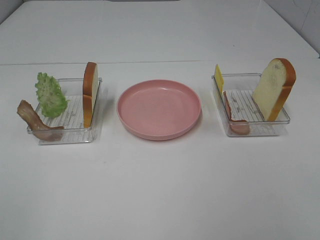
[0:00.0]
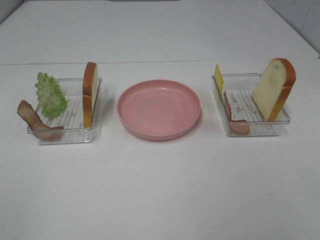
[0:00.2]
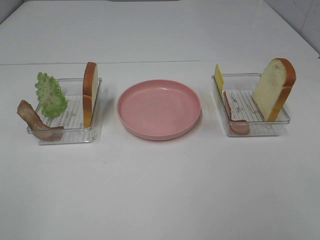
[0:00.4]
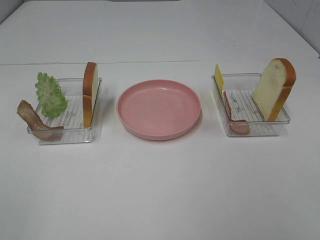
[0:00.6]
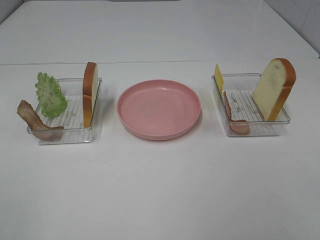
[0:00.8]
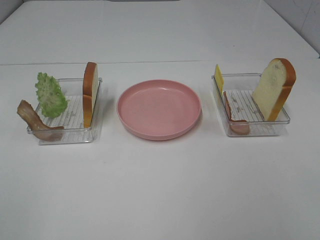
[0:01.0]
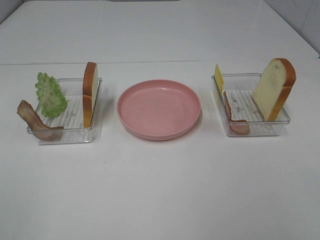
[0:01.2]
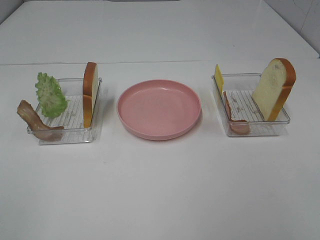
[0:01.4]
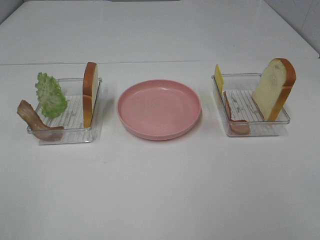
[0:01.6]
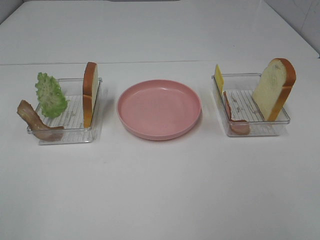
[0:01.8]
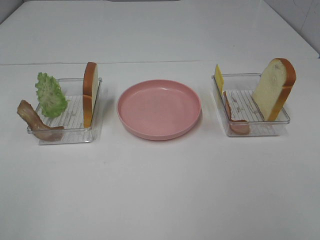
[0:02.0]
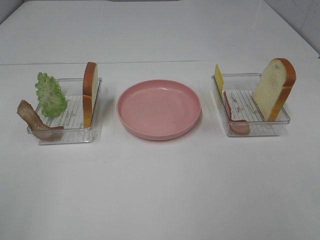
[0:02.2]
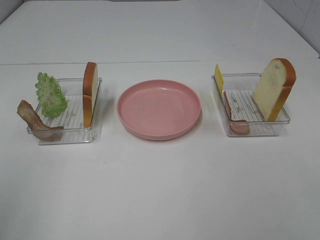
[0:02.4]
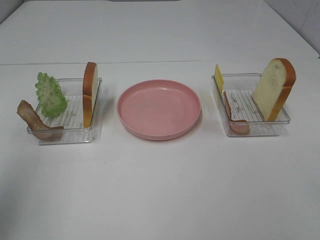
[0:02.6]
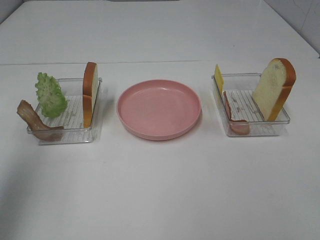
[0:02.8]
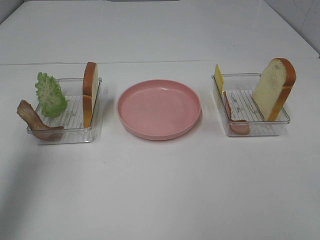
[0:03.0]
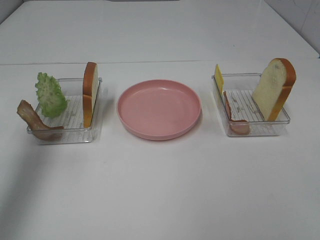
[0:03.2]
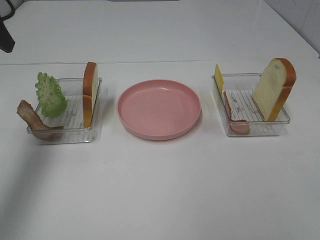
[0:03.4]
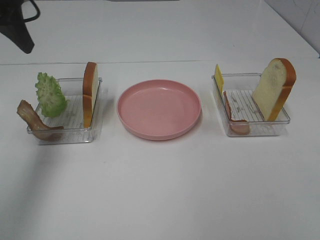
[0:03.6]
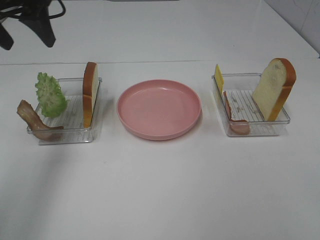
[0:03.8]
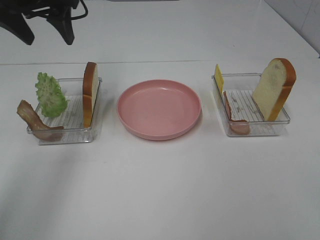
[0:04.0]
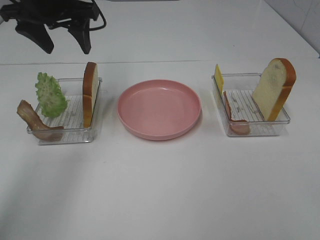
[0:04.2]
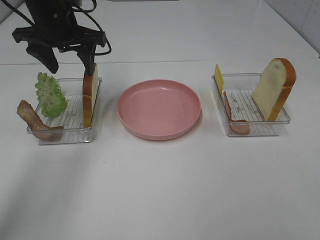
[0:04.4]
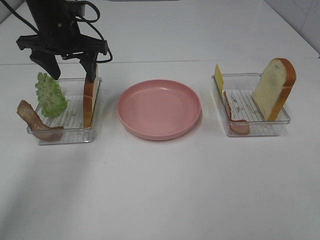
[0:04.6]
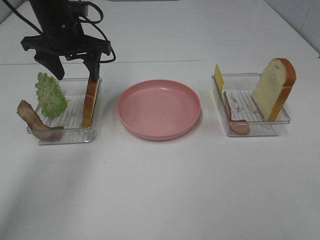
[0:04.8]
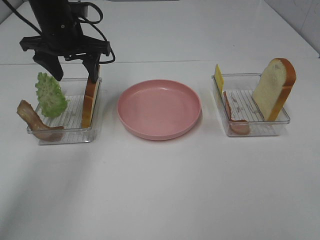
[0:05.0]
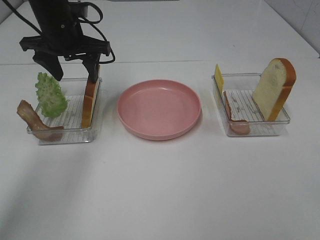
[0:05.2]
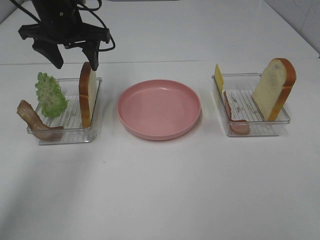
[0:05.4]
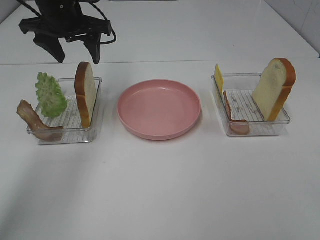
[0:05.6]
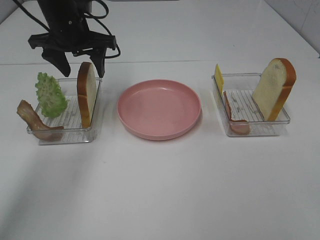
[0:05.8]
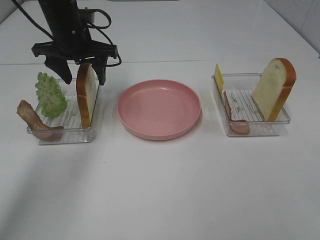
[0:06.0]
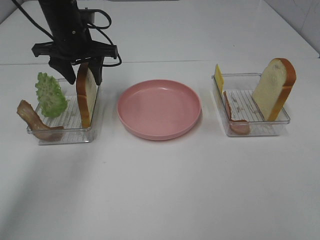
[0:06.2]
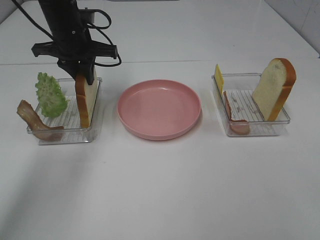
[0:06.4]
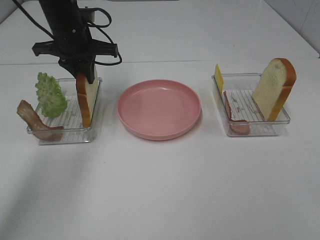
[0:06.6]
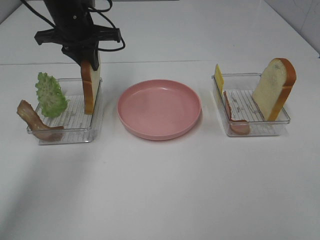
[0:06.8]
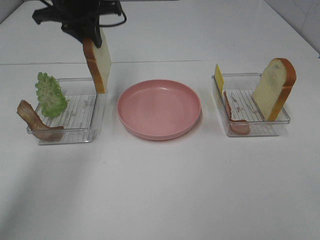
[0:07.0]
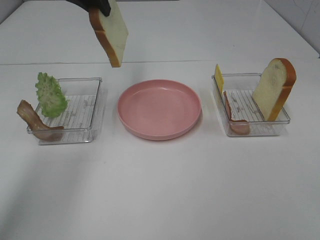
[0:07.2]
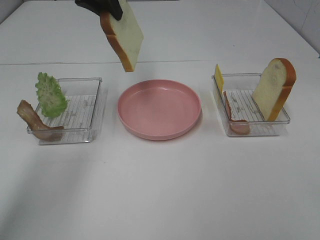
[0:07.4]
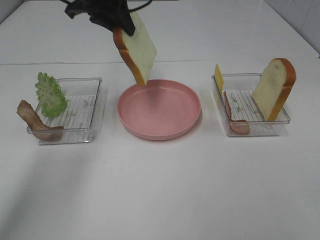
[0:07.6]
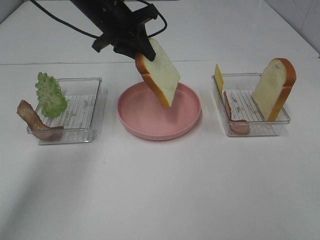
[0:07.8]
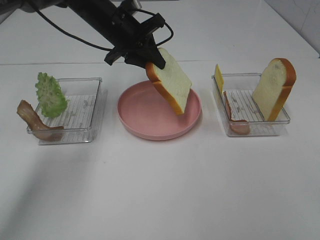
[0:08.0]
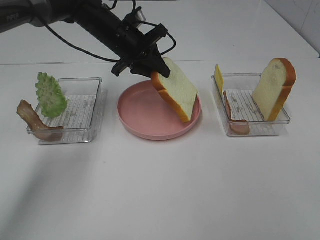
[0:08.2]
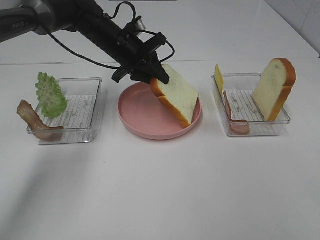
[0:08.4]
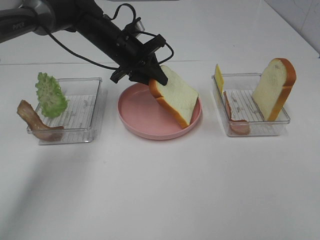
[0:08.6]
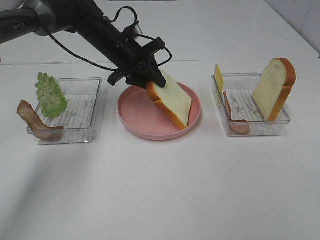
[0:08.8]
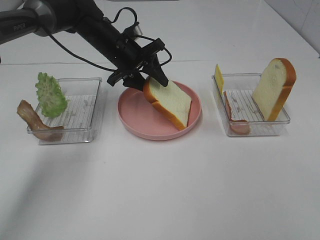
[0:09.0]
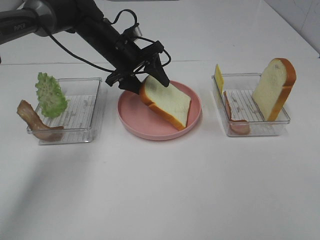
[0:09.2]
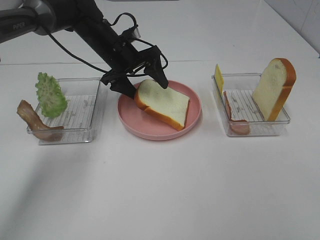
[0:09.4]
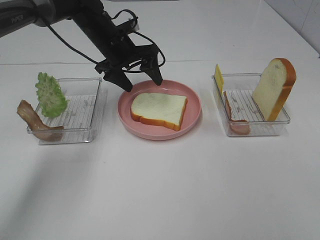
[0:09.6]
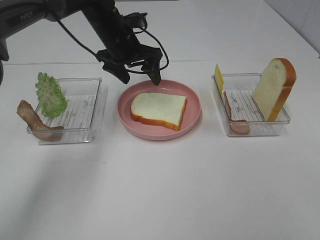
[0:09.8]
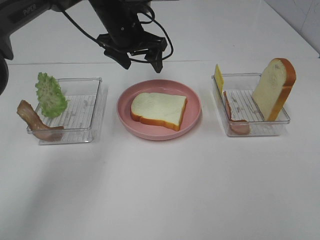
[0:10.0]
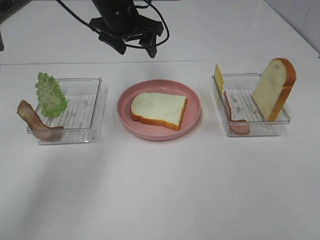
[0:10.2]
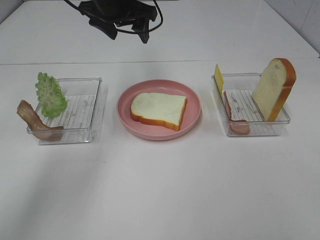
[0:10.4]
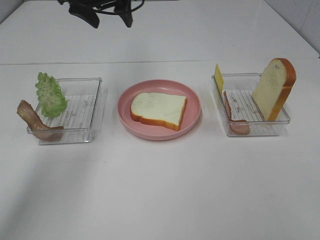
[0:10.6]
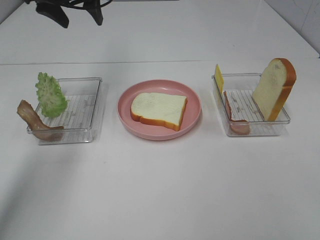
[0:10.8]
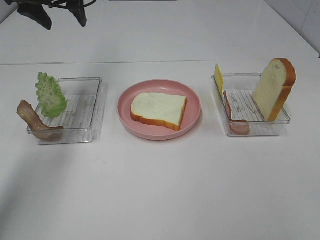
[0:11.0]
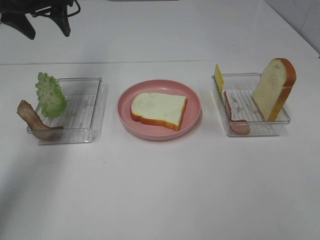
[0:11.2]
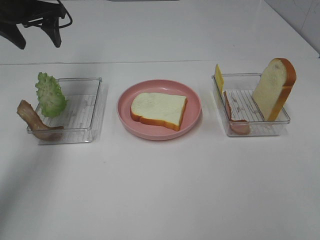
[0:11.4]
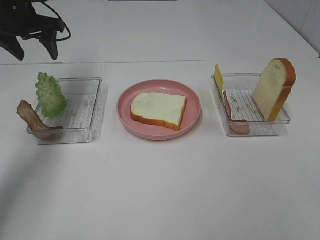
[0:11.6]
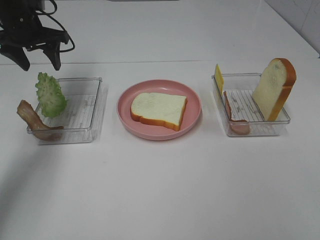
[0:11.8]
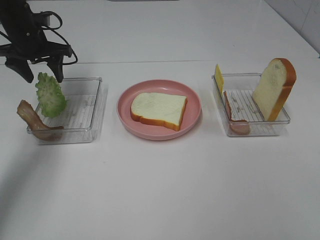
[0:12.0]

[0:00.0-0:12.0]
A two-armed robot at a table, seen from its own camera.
Task of the whole recording: Make sandwiches.
Step, 0.0 to 6.2 s: Left hand:grab the bread slice.
Step, 6.4 to 9.6 s: Left hand:place the bread slice on the plate.
0.0 to 1.6 s: Both grippers stay about where they are.
1.6 to 3.0 s: The left gripper shifts roughly 25 cm forward.
3.0 to 4.4 s: The left gripper is displaced forward, to the right and downward by some 25 cm.
4.4 to 6.0 s: The grippers move only a little.
6.0 to 7.6 s: The left gripper is displaced upward by roughly 5 cm, and closes up.
7.6 to 9.0 s: The left gripper moves downward, some 15 cm.
9.0 to 10.4 s: The left gripper shifts some 10 cm upward.
10.4 to 12.0 s: The left gripper is displaced to the left and downward by some 20 cm.

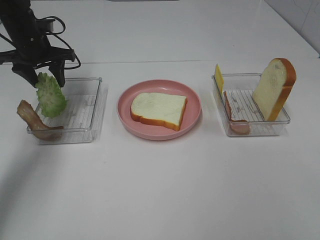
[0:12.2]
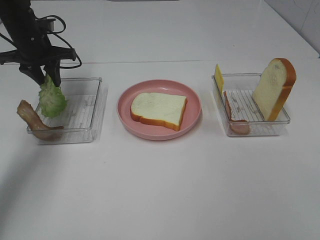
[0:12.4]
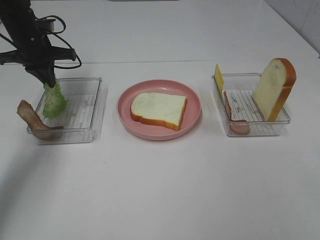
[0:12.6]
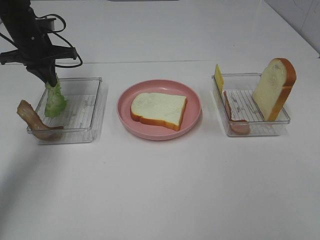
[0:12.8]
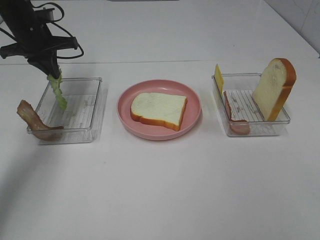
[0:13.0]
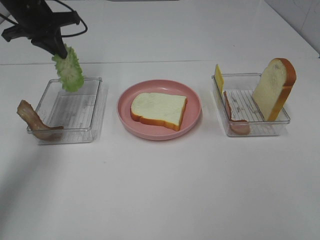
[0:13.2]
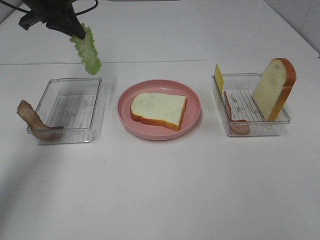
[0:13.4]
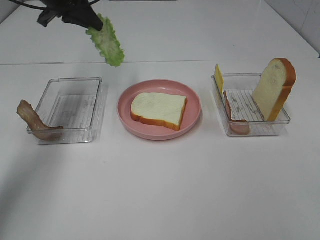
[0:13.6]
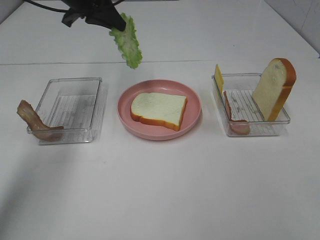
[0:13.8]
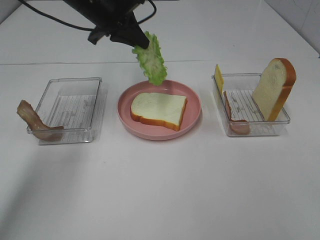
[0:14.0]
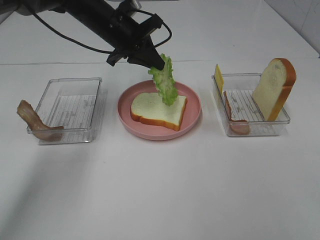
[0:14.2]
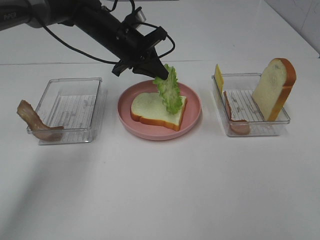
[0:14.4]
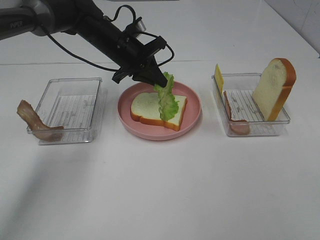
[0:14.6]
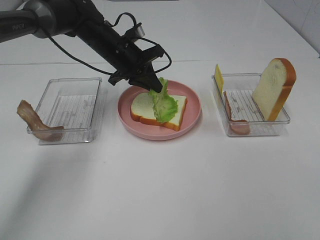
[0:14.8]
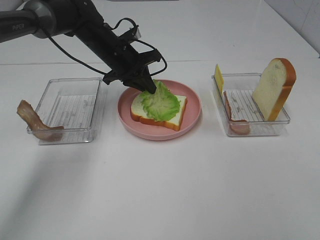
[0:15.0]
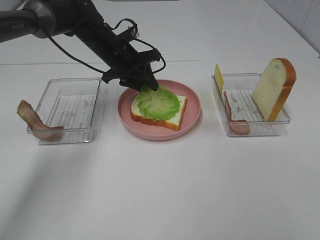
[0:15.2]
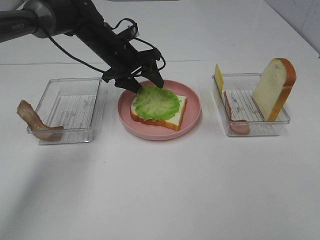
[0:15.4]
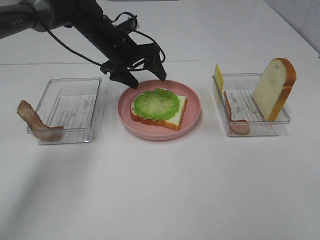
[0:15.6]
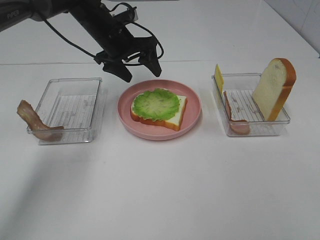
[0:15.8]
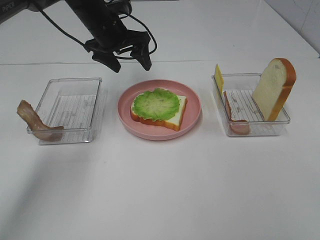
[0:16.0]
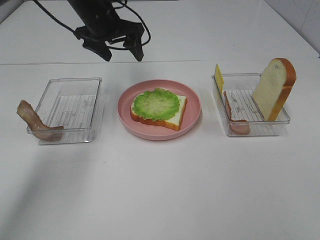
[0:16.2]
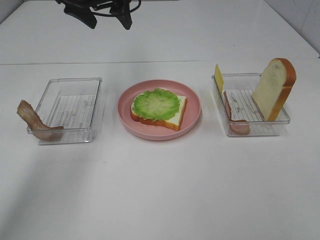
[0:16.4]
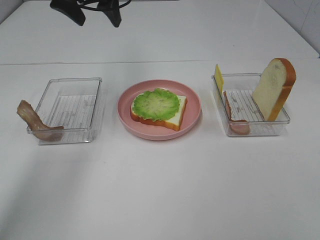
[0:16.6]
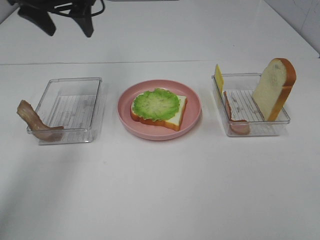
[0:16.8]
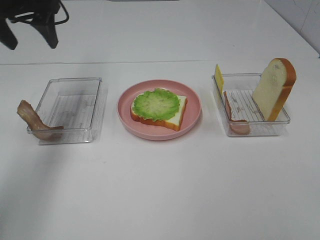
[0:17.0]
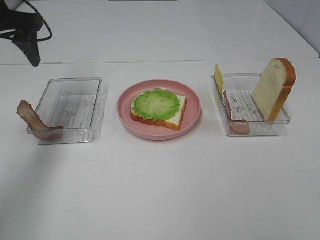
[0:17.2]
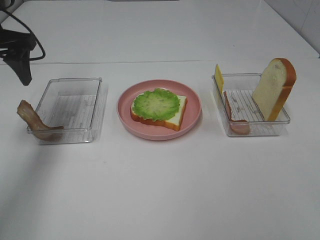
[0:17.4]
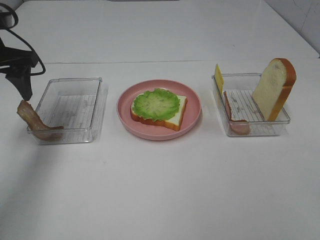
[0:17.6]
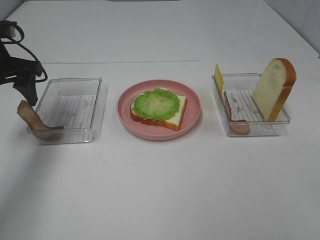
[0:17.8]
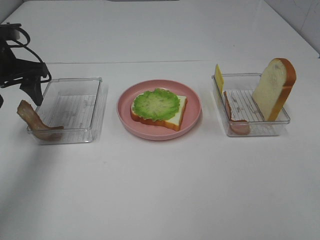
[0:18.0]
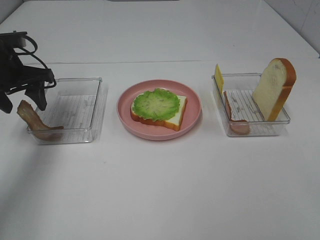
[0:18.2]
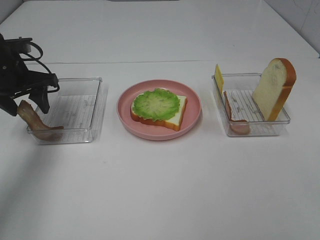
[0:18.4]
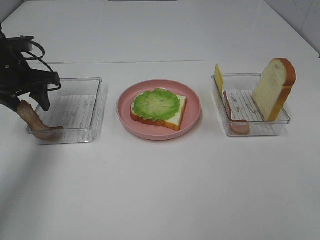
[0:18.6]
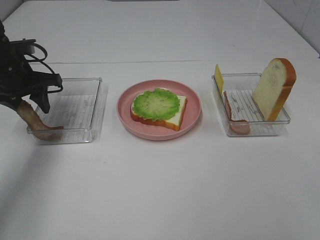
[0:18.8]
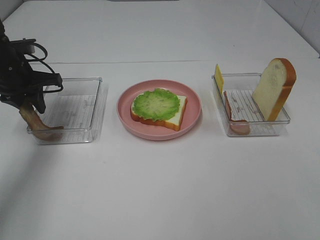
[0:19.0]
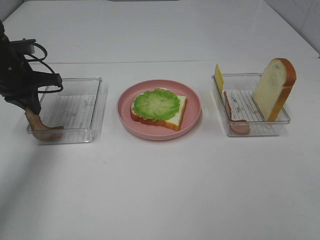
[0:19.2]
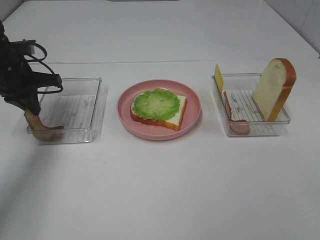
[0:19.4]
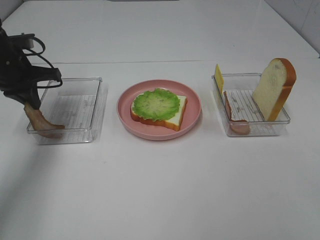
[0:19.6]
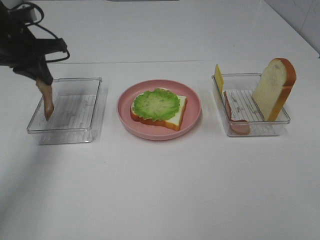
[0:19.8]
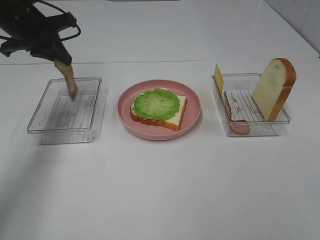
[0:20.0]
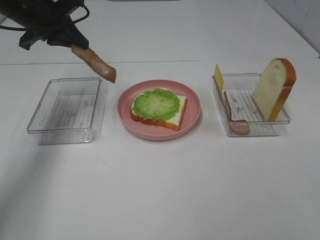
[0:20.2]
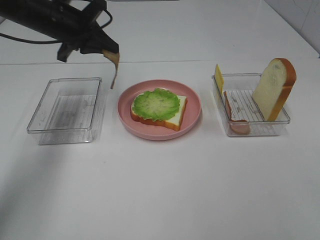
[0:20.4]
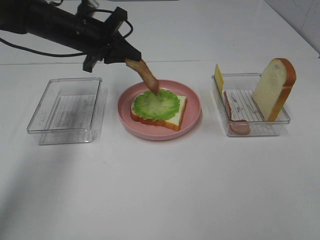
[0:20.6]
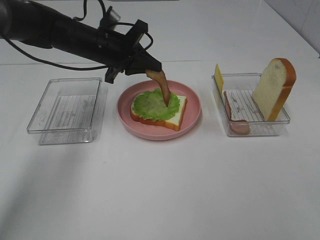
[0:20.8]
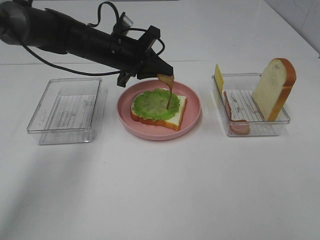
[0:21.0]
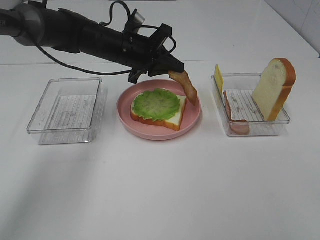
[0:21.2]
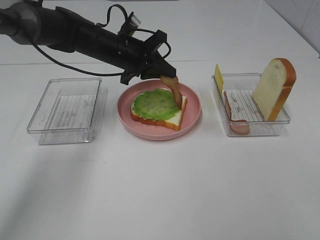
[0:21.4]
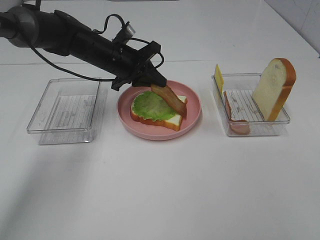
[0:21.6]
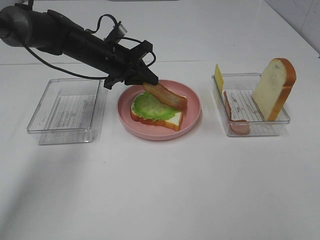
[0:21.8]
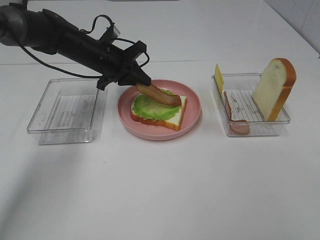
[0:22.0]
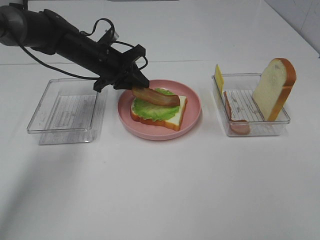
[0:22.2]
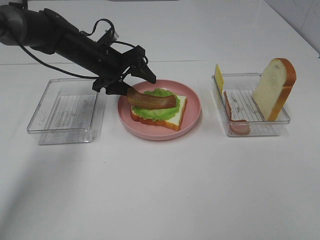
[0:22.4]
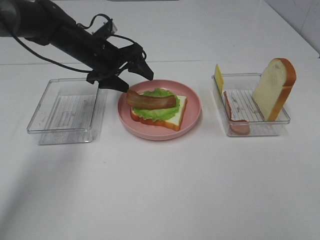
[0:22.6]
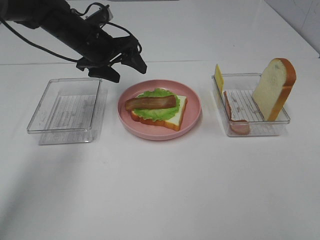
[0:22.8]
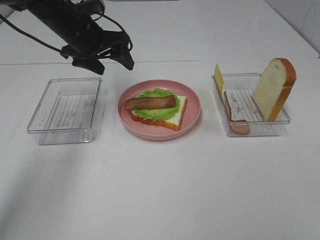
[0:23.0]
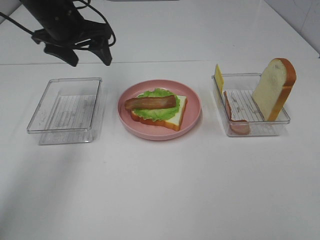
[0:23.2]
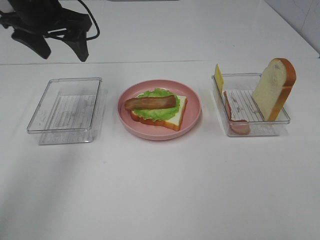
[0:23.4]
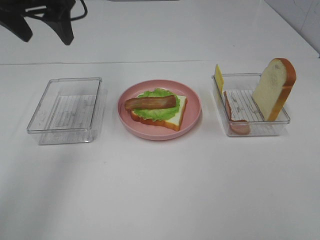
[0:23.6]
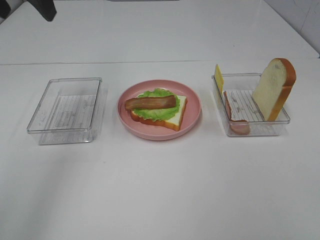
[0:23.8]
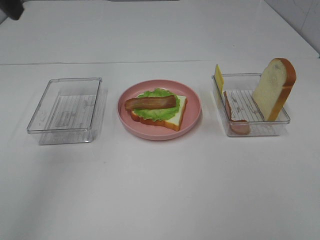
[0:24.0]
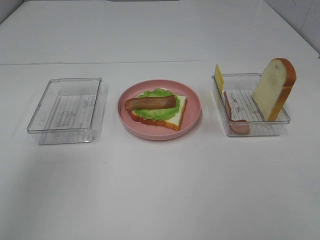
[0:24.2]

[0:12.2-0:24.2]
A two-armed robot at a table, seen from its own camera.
Task of the whole recording: Make sandwiches.
Step, 12.6 to 15.6 s: Left hand:place the lettuce slice on the bread slice.
Step, 15.8 to 19.4 s: Left hand:grab the bacon.
Step, 19.6 to 22.6 s: Left hand:place bacon on lettuce slice.
12.2 to 13.8 s: The left gripper heads to the right and upward, covering roughly 15 cm, and closes up.
13.8 to 15.2 s: The left gripper is displaced downward and to the right by roughly 15 cm, and opens up.
15.2 to 16.6 s: The left gripper is displaced upward by about 15 cm, and opens its fingers.
16.6 to 18.2 s: The left gripper is displaced downward, to the left and backward by some 20 cm.
18.2 to 19.8 s: The left gripper closes up.
19.8 to 21.2 s: The left gripper is displaced to the right by some 20 cm.
21.2 to 22.6 s: The left gripper moves to the left, some 5 cm, and opens.
22.6 to 24.2 s: The left gripper shifts some 35 cm backward, upward and to the left.
